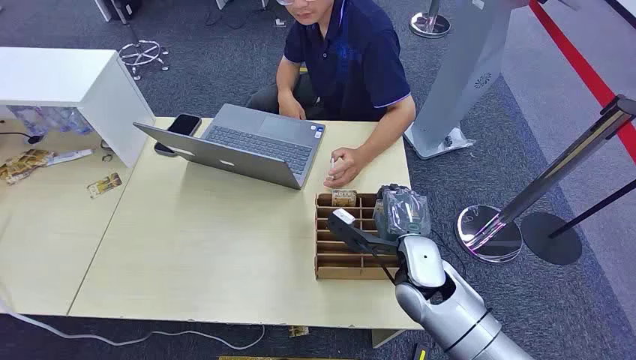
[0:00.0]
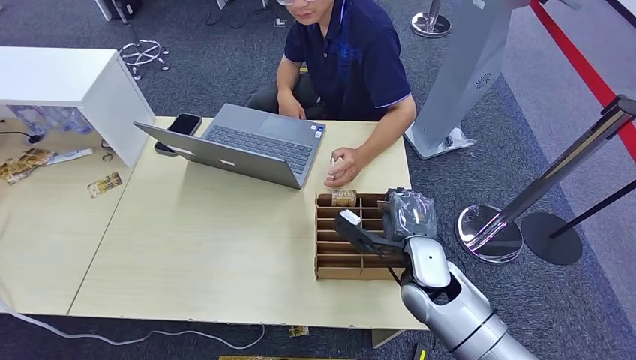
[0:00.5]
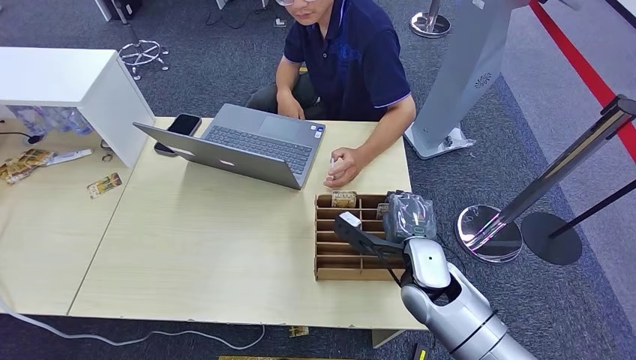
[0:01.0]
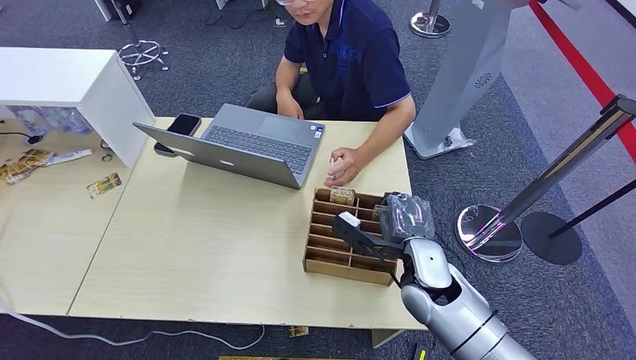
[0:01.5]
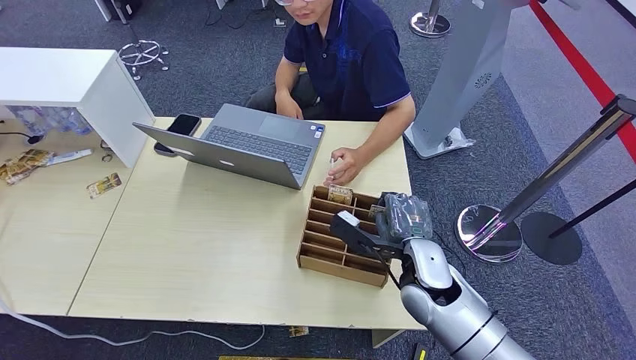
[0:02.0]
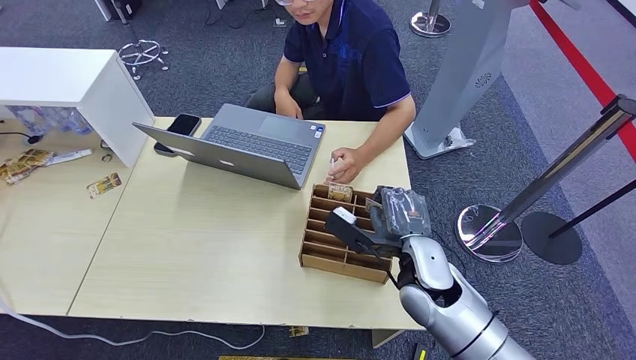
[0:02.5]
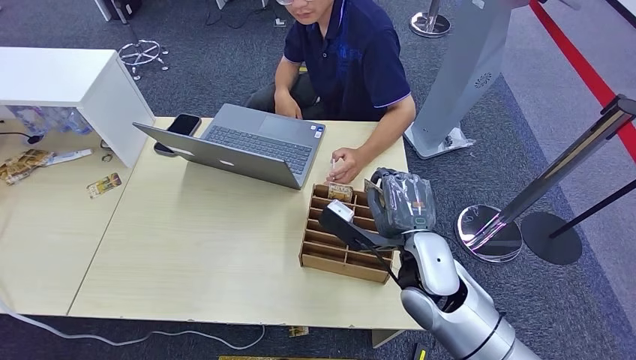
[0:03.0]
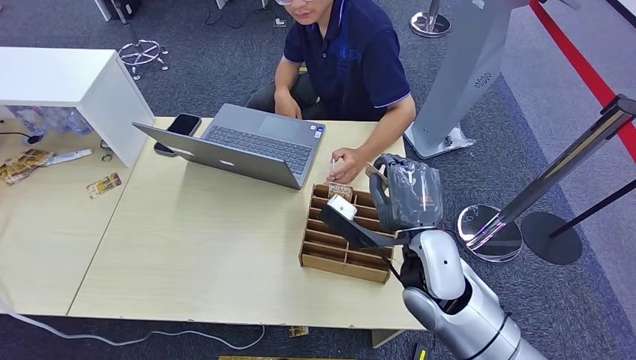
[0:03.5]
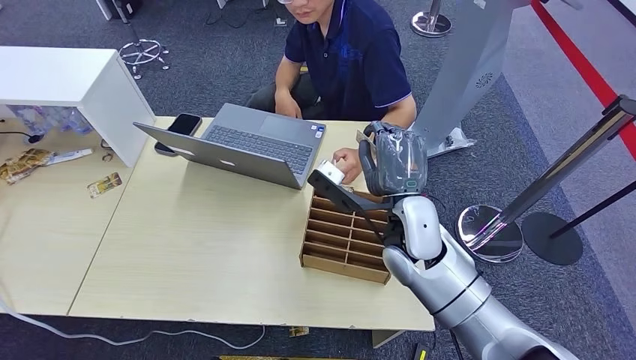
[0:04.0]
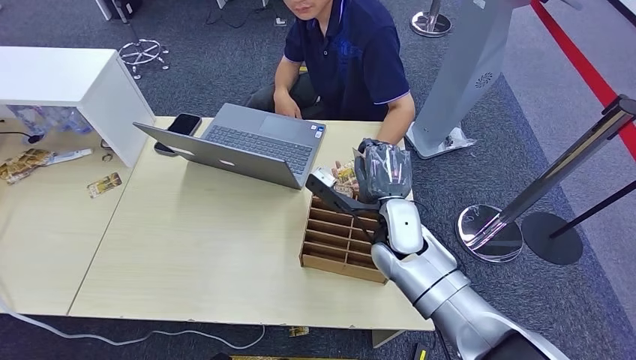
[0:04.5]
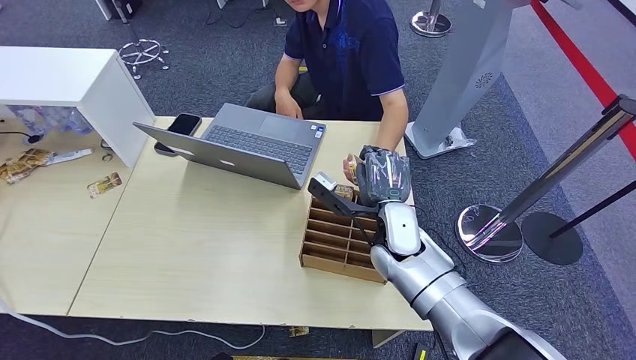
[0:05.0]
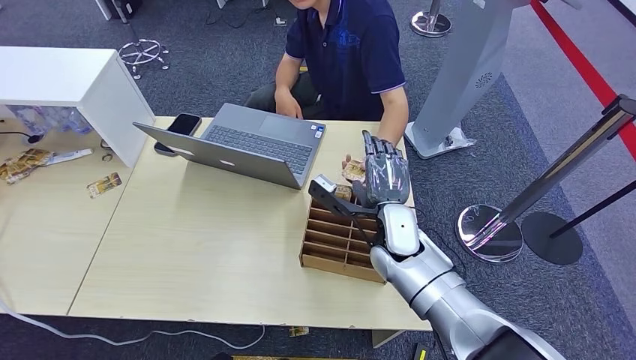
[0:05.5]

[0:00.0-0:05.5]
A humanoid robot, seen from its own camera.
Step, 0:00.0 to 0:02.5: Pick up the key card from the card box.
0:02.0 to 0:03.5: The right hand heads upward, covering some 5 cm.
0:03.5 to 0:05.5: The right hand is displaced forward and downward by roughly 10 cm, while the left hand changes place by about 5 cm.
